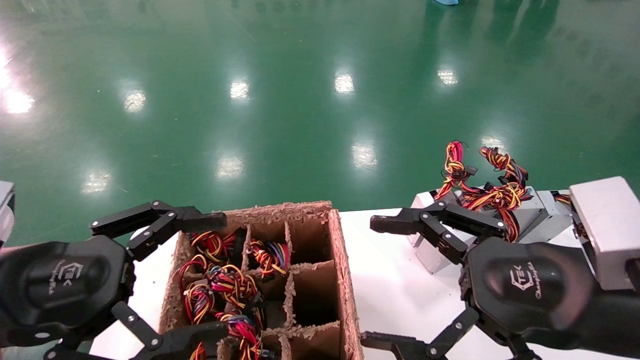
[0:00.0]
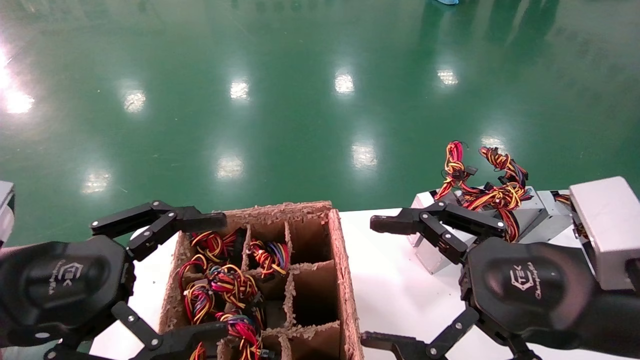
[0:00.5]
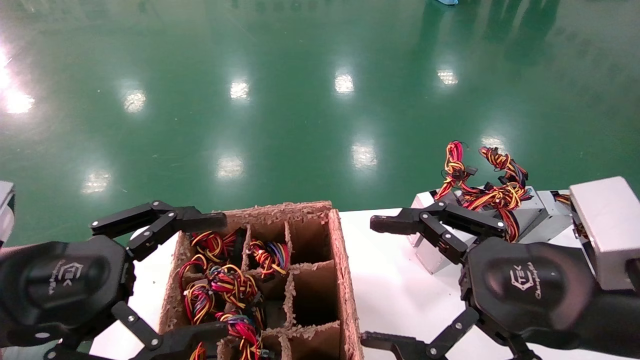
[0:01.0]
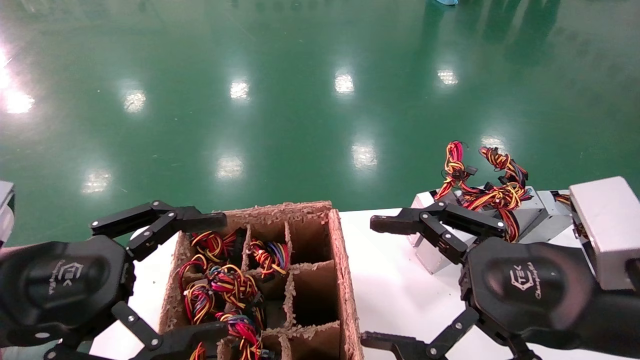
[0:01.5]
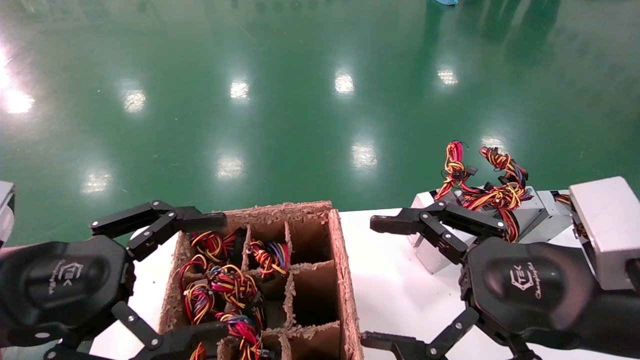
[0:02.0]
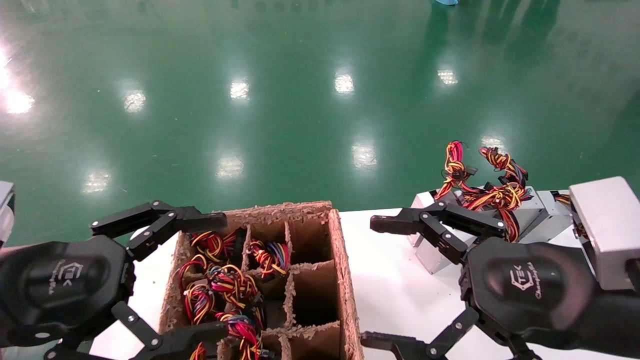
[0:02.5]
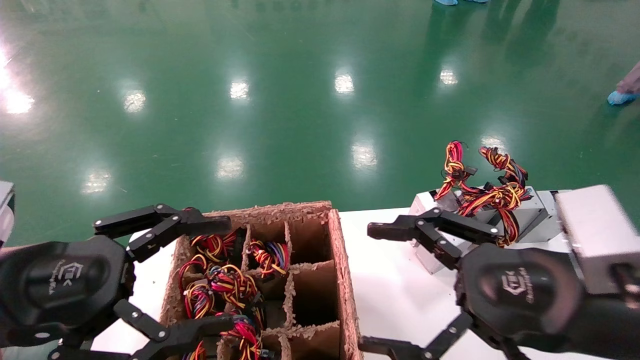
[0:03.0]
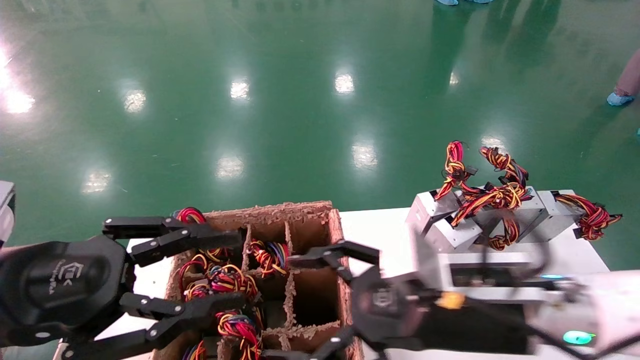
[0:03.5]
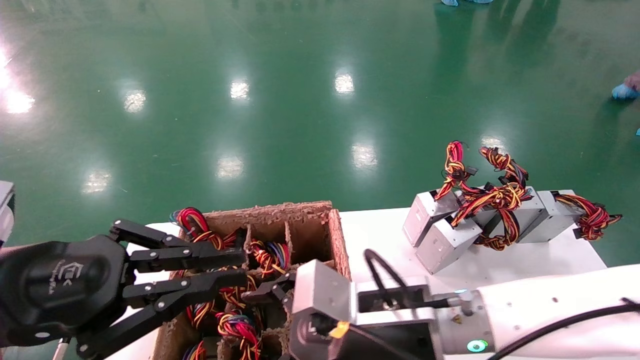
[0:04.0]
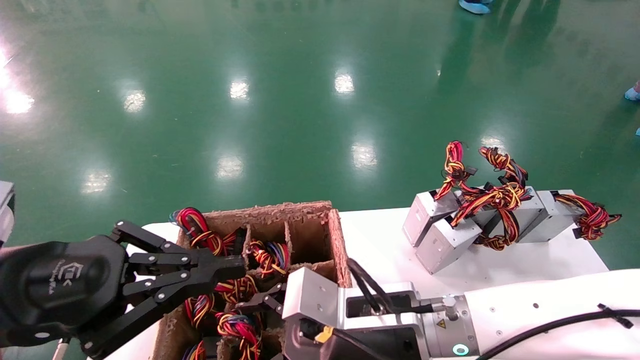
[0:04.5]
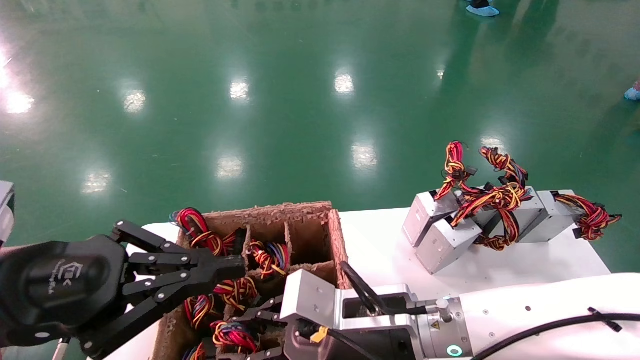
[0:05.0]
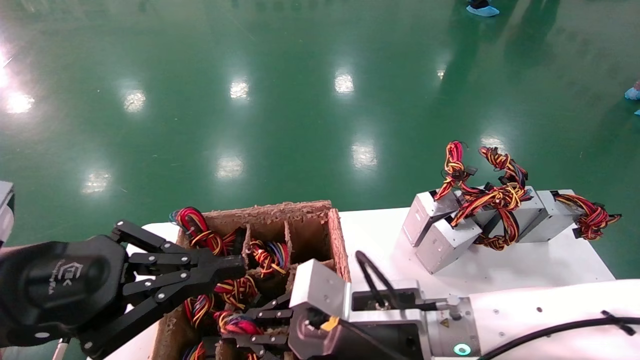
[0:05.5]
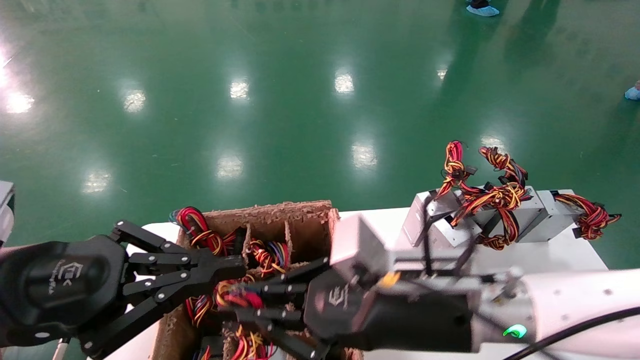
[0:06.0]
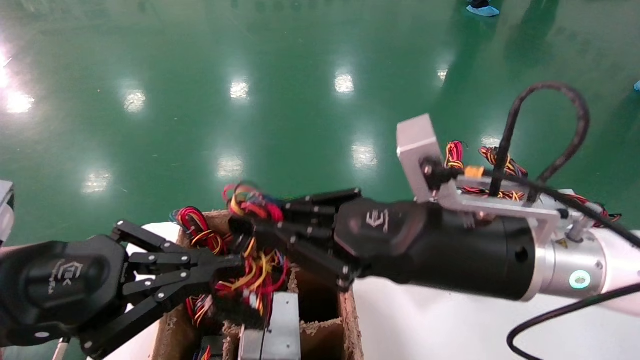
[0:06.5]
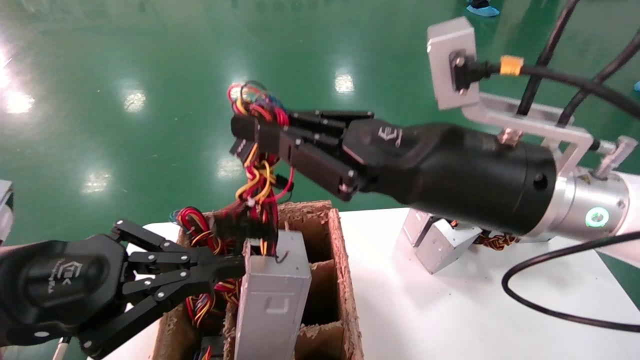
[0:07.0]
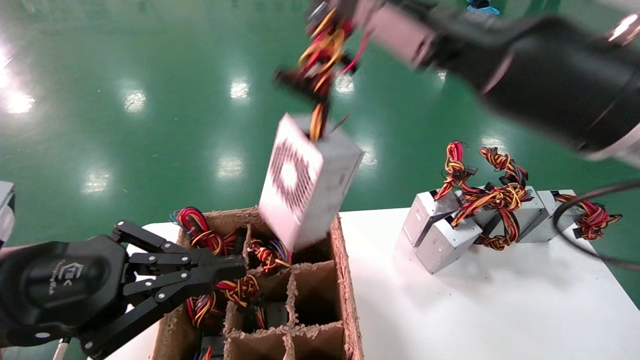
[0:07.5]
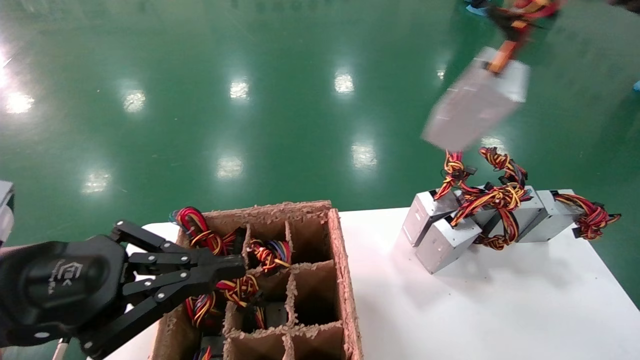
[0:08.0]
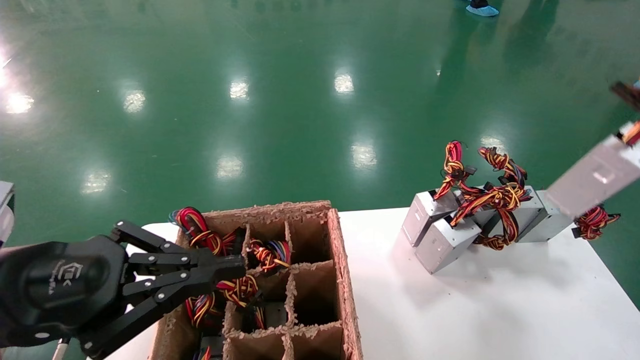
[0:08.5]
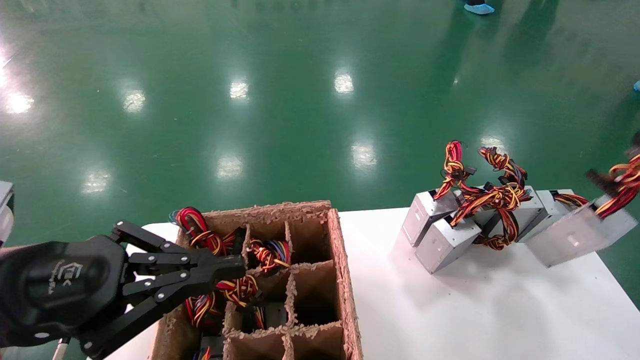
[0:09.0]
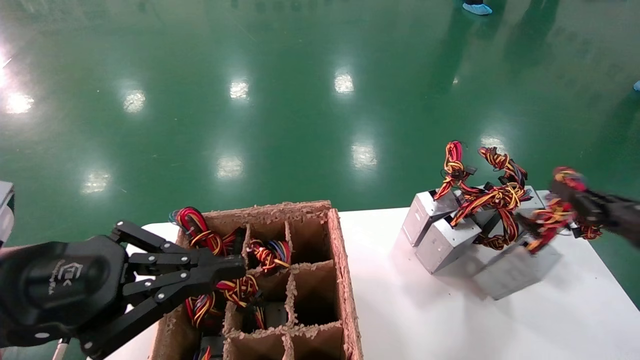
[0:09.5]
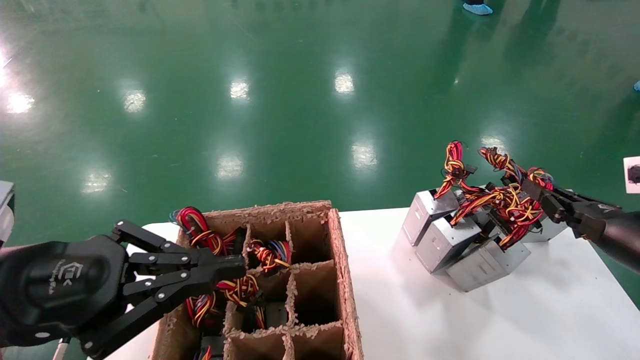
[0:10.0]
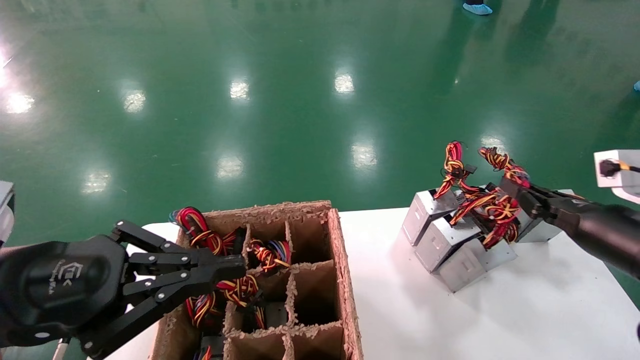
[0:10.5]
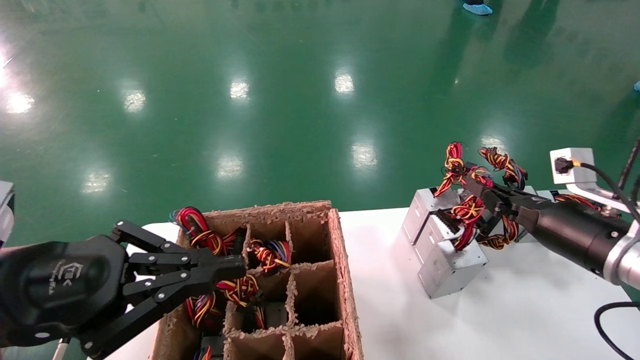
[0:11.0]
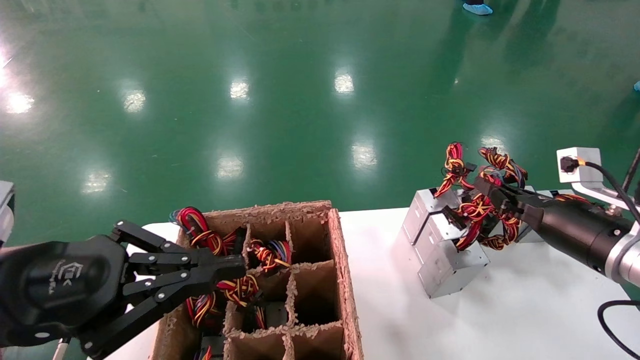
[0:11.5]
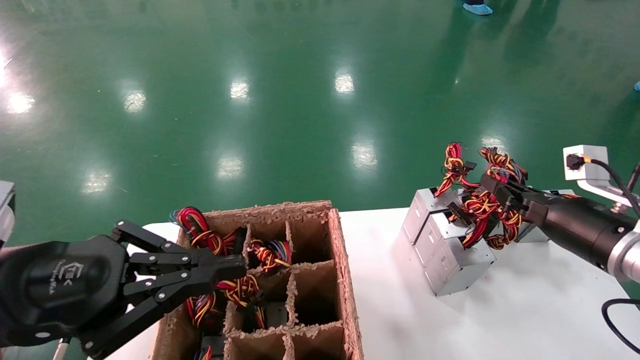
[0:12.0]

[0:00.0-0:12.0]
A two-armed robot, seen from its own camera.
Step, 0:03.5 to 0:05.0: Grab the main unit power supply from the containment box.
0:00.0 to 0:02.0: Both grippers stay about where they are.
0:02.0 to 0:04.0: The left gripper closes its fingers. Meanwhile the right gripper moves to the left, downward and forward, roughly 20 cm.
0:04.0 to 0:06.0: The right gripper closes.
0:06.0 to 0:08.0: The right gripper travels to the right and upward by roughly 30 cm.
0:08.0 to 0:10.0: The right gripper shifts roughly 20 cm downward.
0:10.0 to 0:12.0: The right gripper goes approximately 5 cm to the left.

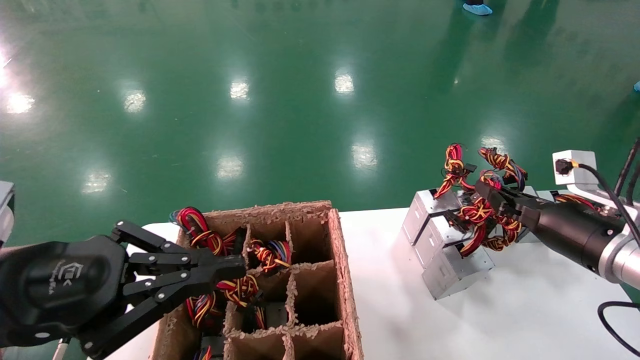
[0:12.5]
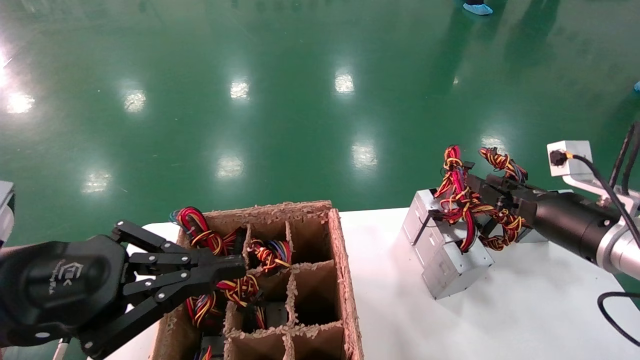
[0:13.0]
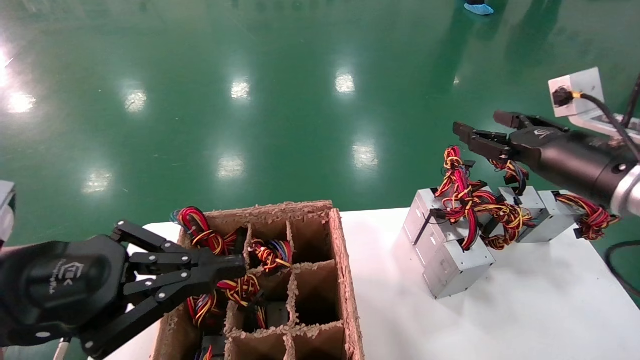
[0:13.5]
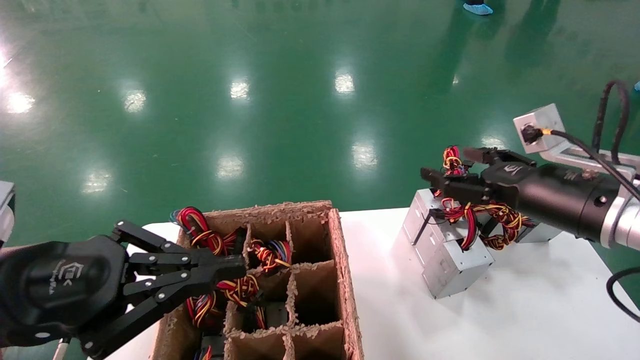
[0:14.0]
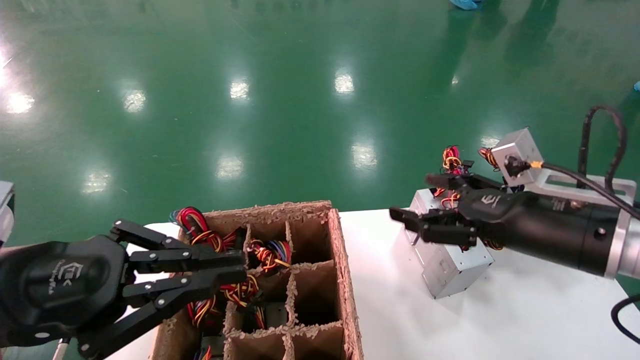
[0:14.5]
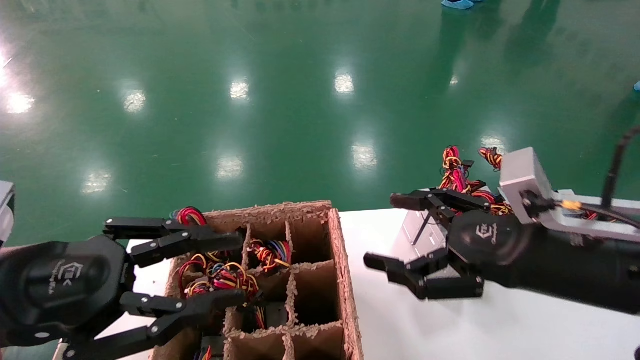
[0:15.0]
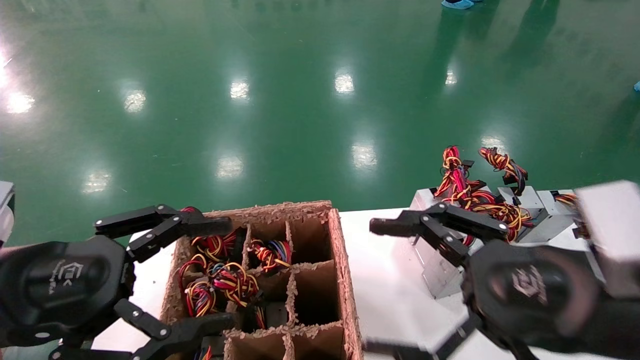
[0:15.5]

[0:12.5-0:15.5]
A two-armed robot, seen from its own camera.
0:12.5 to 0:14.0: The right gripper shifts roughly 5 cm upward, and opens its fingers.
0:14.0 to 0:15.5: The left gripper opens up; the right gripper moves backward and to the left, roughly 15 cm.
